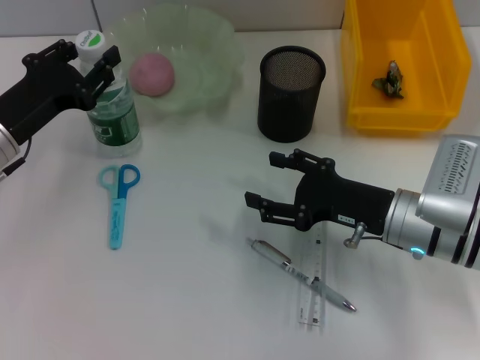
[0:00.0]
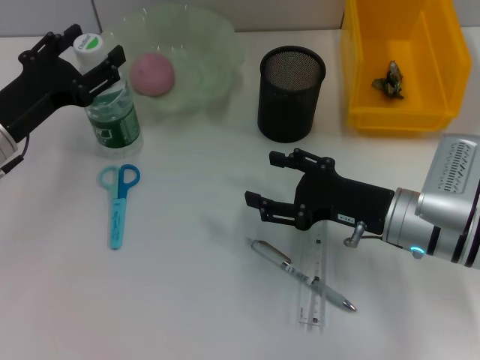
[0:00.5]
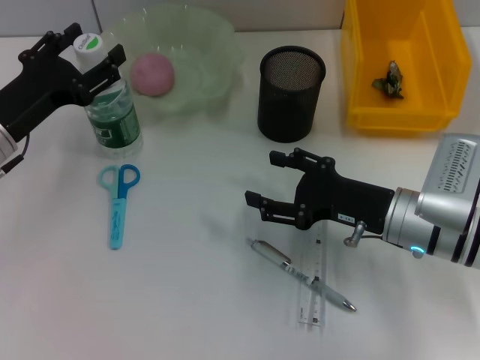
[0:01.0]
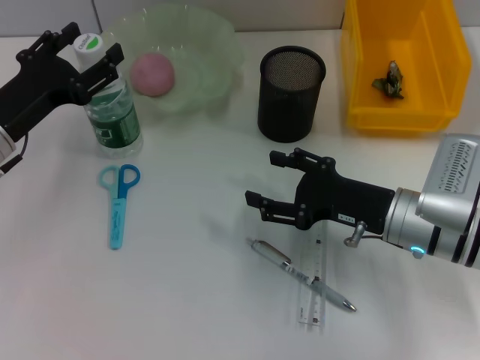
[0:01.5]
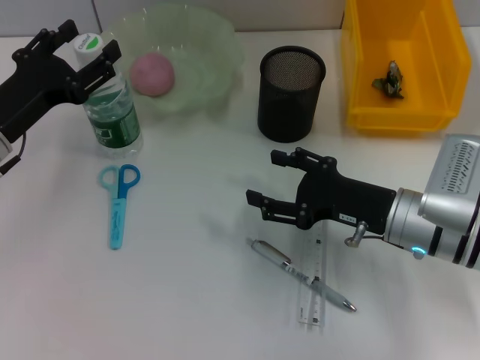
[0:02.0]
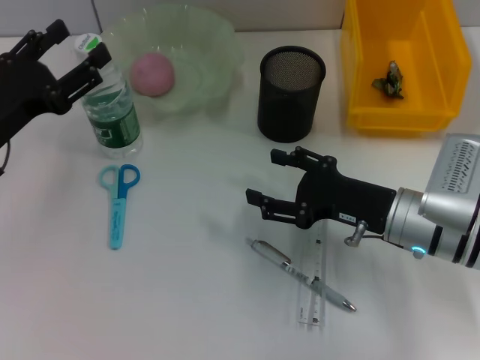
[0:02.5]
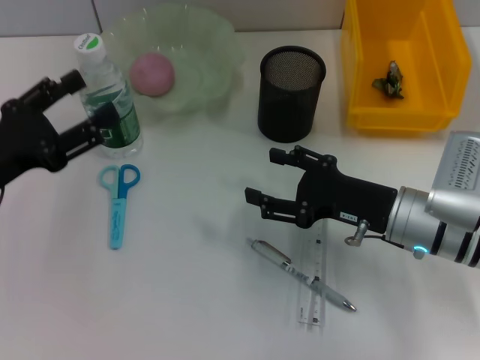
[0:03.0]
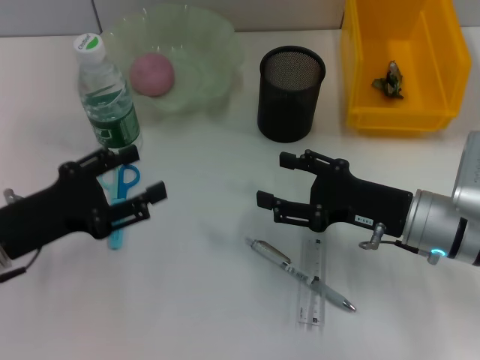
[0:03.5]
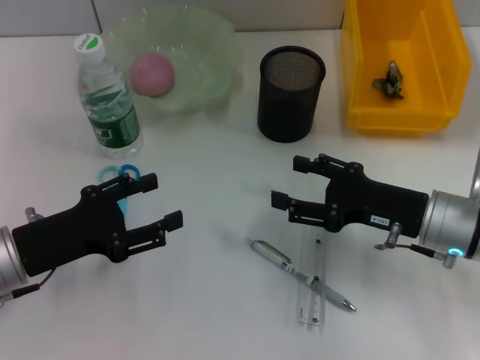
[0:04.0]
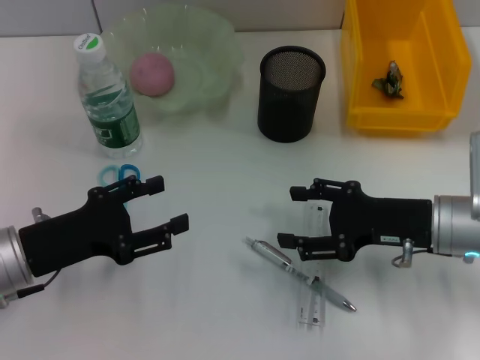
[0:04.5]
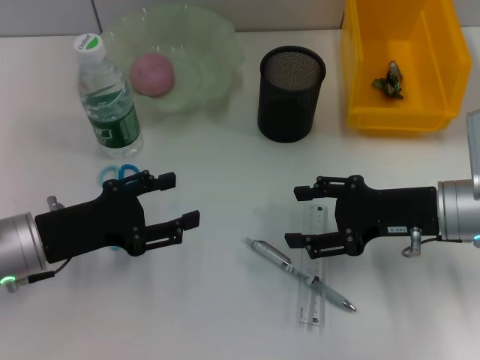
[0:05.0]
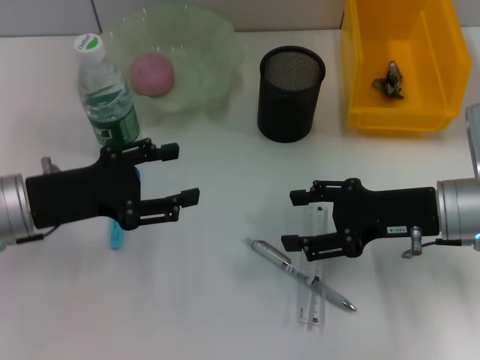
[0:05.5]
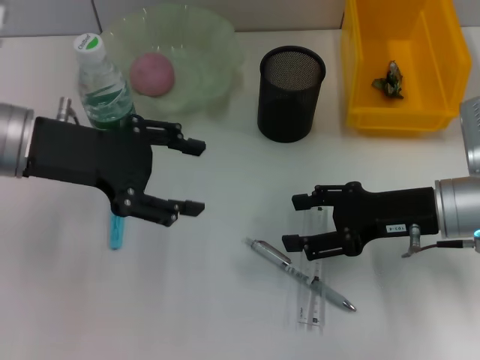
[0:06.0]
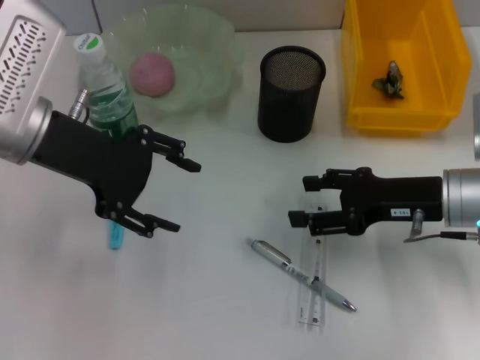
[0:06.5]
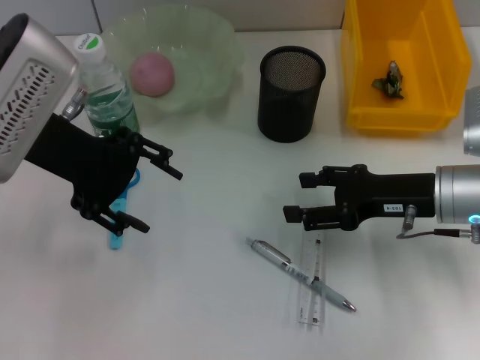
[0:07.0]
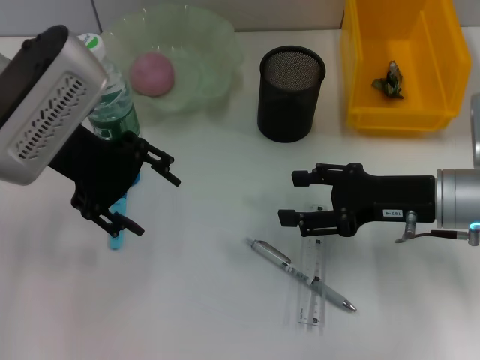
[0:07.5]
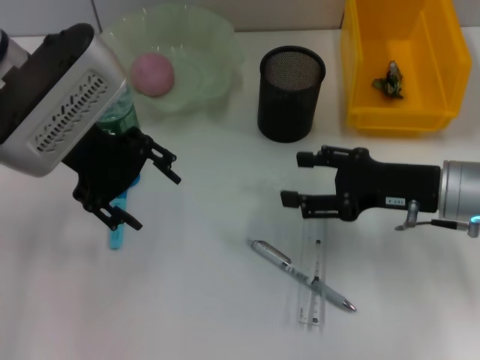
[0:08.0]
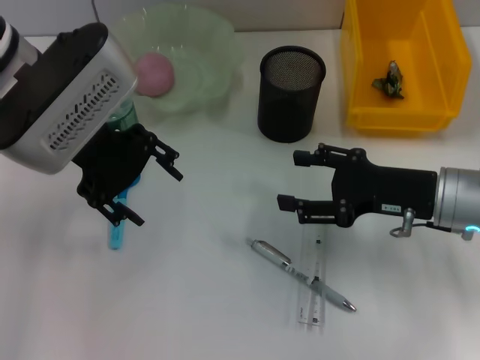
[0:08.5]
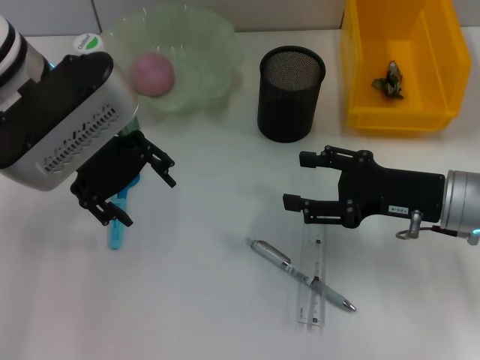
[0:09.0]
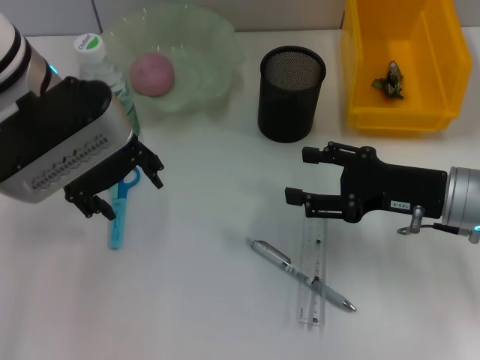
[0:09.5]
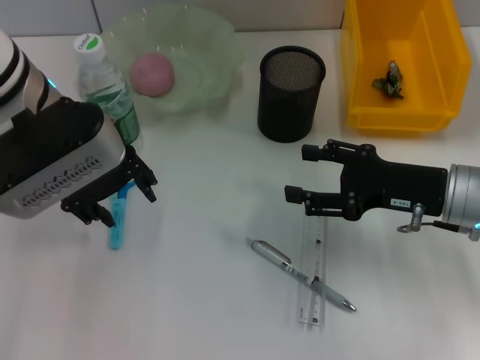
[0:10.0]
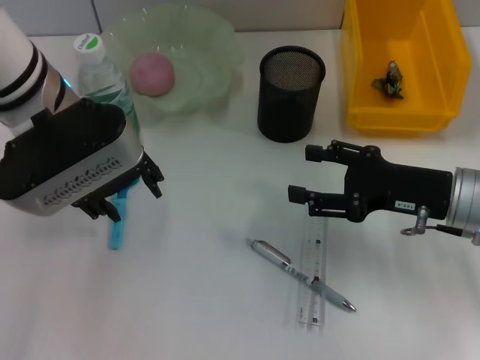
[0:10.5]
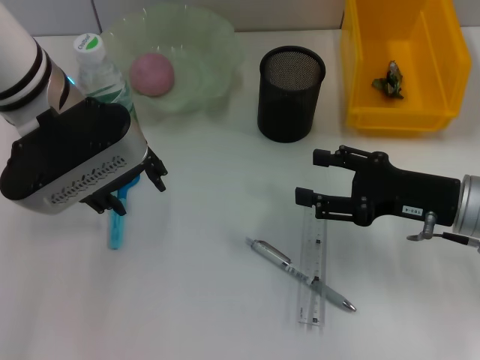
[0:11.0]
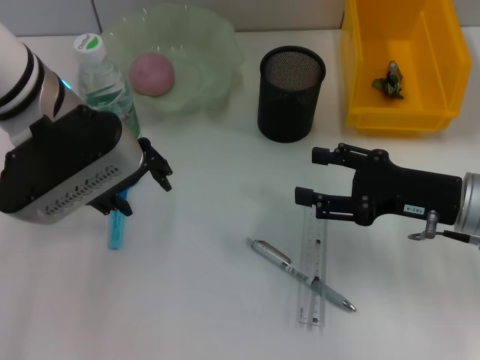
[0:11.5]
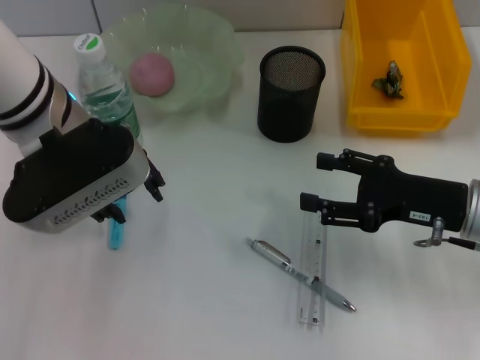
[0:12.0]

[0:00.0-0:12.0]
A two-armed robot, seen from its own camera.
0:00.0 to 0:02.0: The left gripper opens up.
0:02.0 to 0:04.0: The left gripper moves backward, about 10 cm.
0:04.0 to 0:06.0: The left gripper shifts some 15 cm upward and forward.
0:06.0 to 0:08.0: The left gripper is displaced to the right by roughly 5 cm.
0:10.0 to 0:12.0: The grippers move only a little.

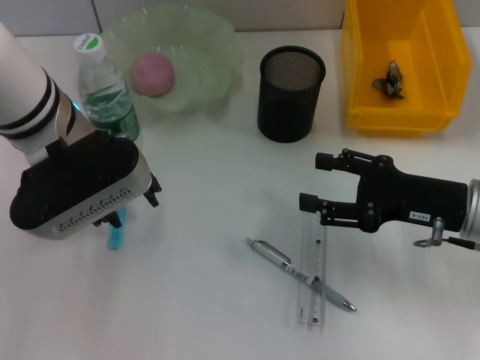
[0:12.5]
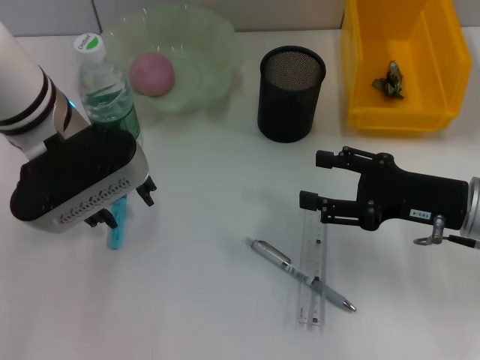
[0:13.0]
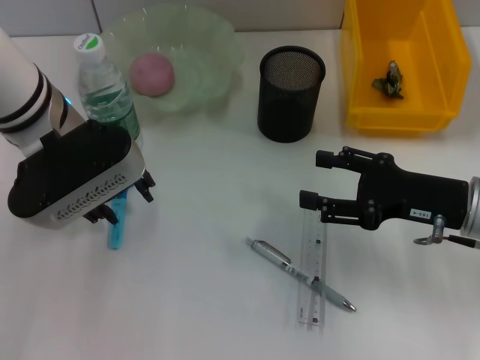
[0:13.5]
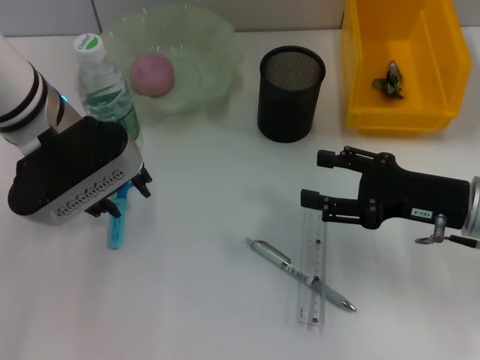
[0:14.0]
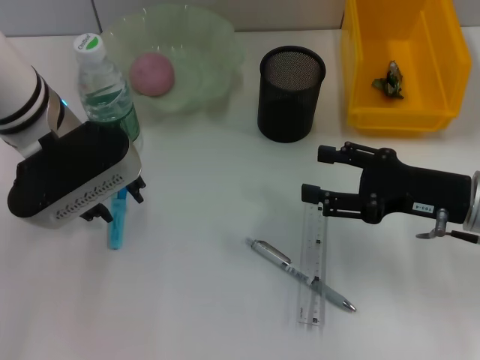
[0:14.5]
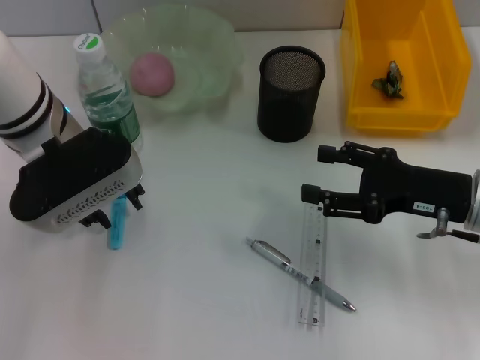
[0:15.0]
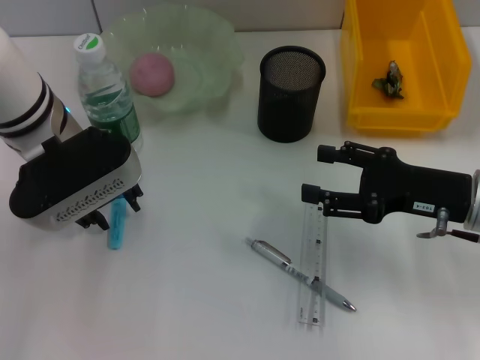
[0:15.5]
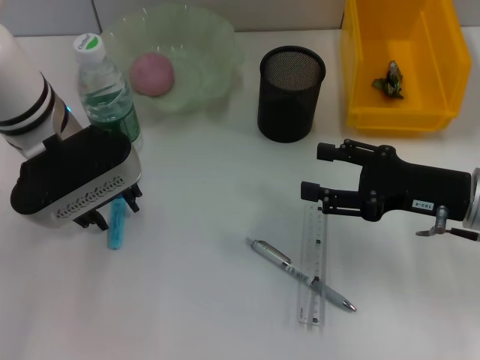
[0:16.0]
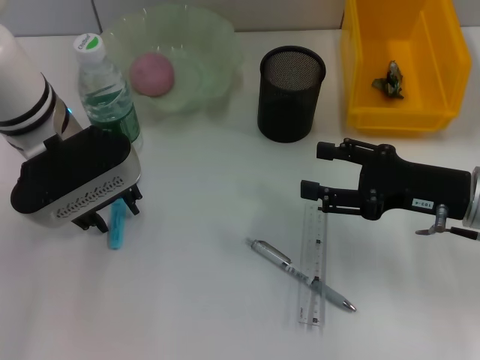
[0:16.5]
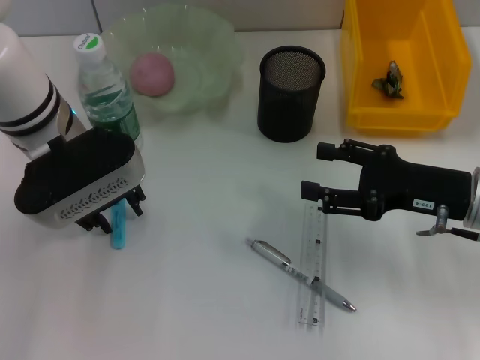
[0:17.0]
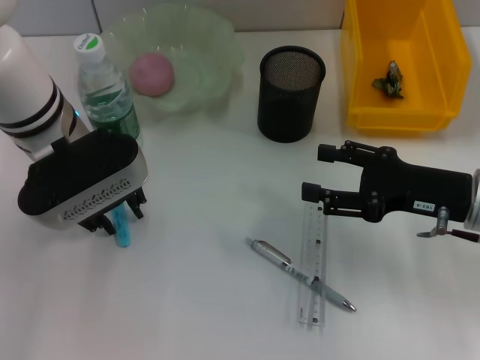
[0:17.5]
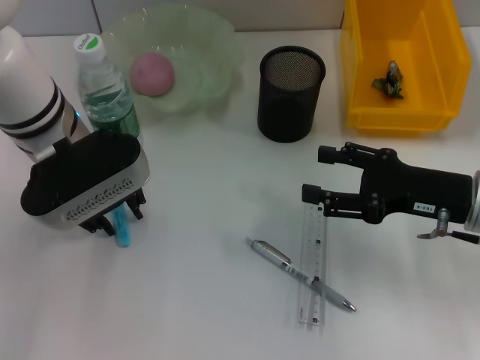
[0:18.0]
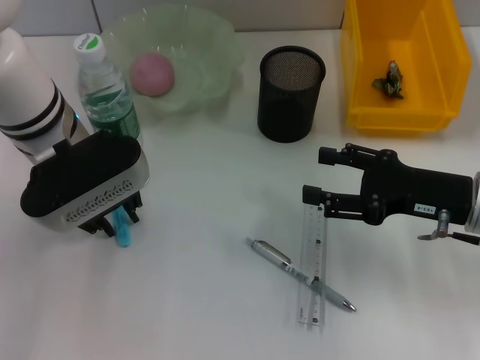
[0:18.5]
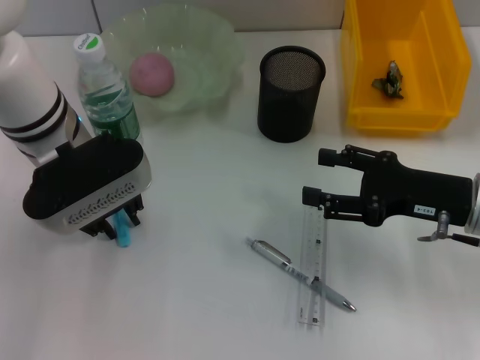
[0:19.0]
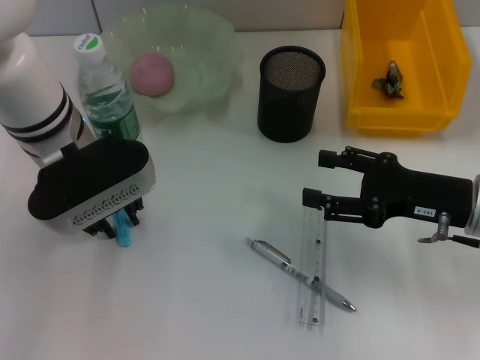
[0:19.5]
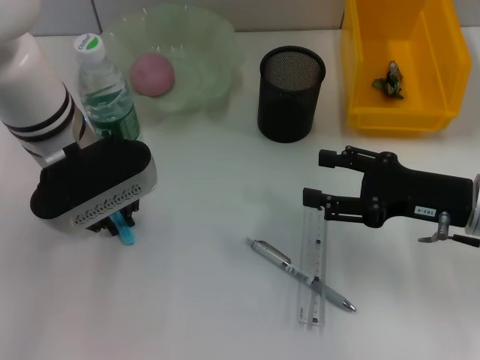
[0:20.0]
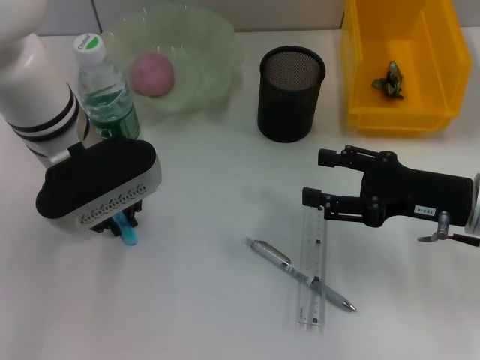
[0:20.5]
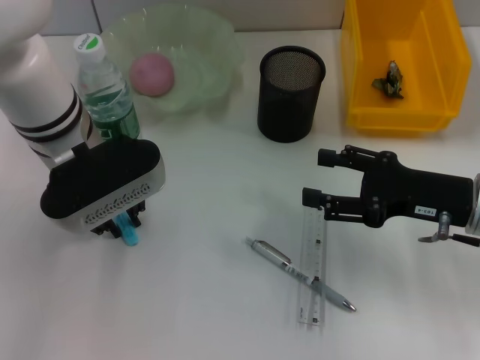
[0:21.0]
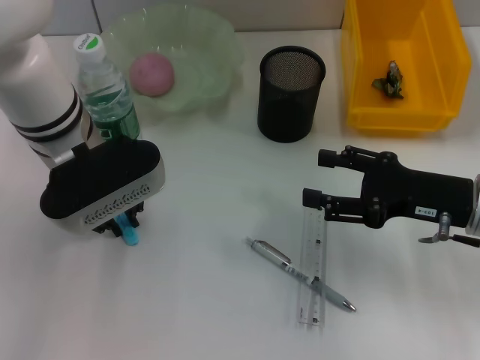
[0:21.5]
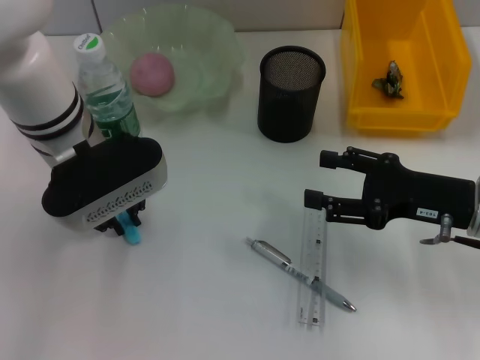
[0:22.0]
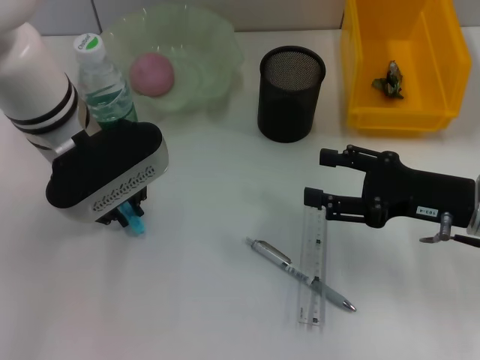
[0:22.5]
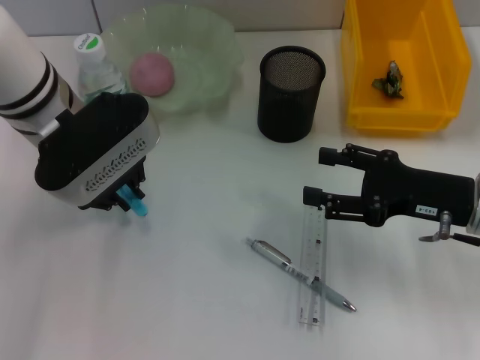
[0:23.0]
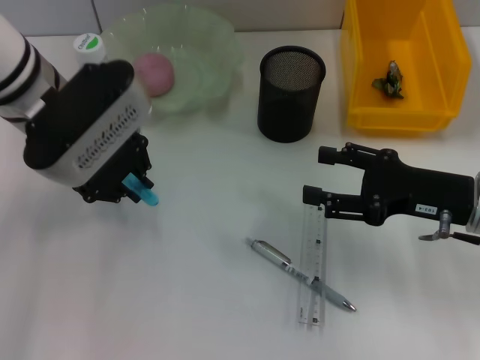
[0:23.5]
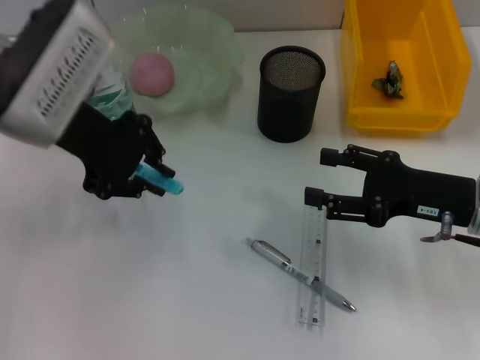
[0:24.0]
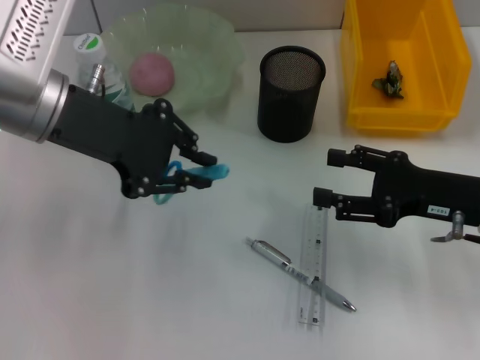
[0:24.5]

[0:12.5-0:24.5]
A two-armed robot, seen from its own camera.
Step, 0:12.5 to 0:22.0: Grab the blue scissors with the left hand.
0:12.5 to 0:16.5: There are only small adjustments of the grippers.
0:16.5 to 0:18.5: The two grippers keep their place.
0:18.5 to 0:20.5: The two grippers keep their place.
0:20.5 to 0:22.5: The grippers stay close to where they were, moving slightly.
0:22.5 to 0:24.5: The left gripper heads upward, covering approximately 5 cm.

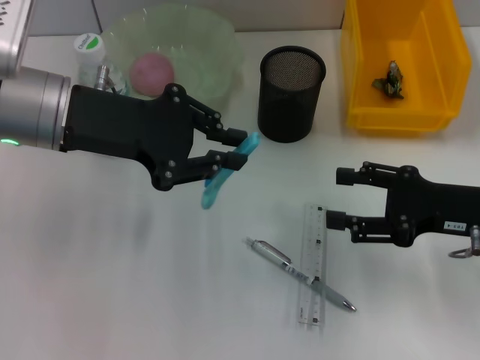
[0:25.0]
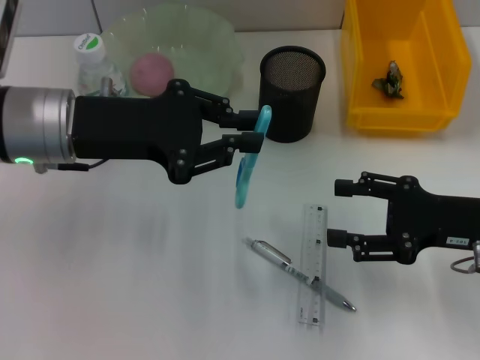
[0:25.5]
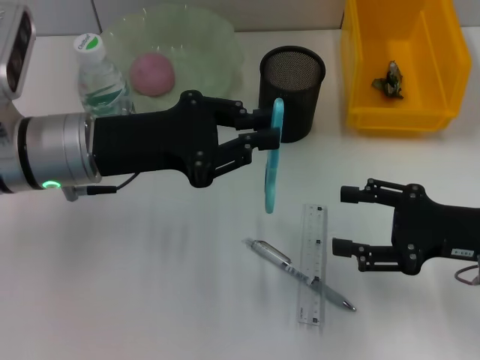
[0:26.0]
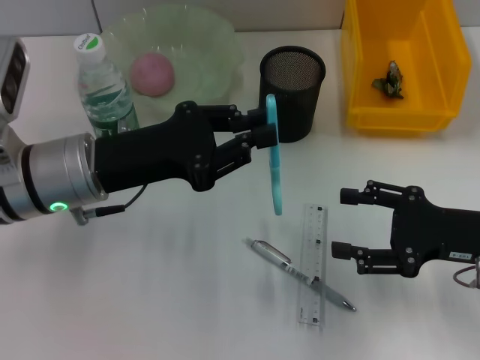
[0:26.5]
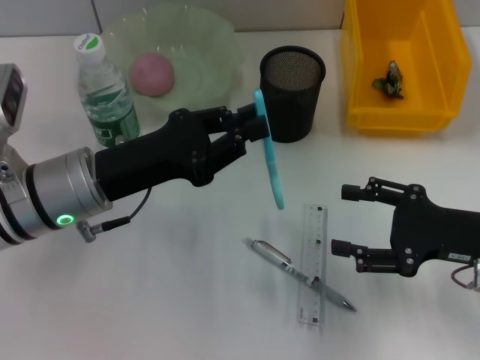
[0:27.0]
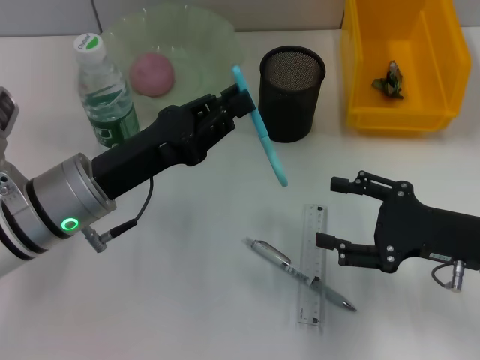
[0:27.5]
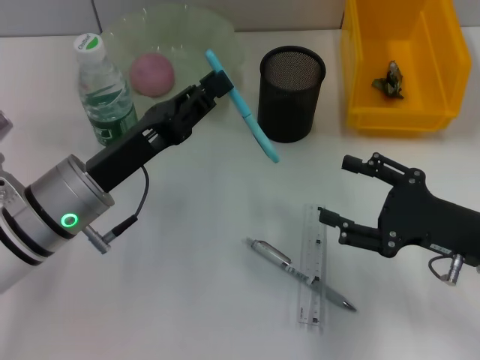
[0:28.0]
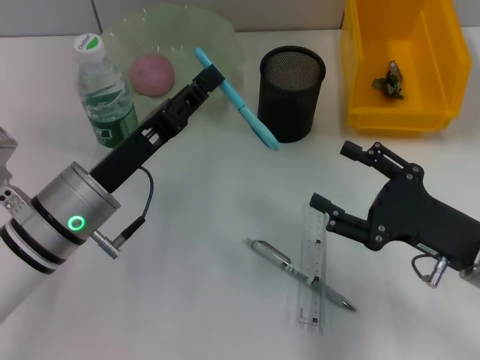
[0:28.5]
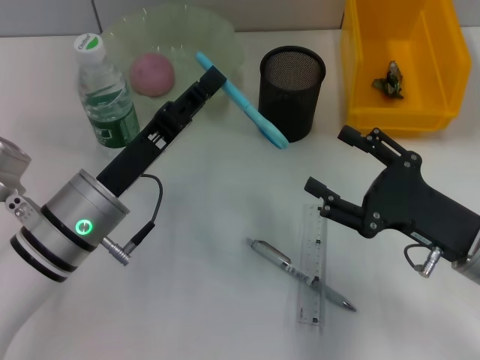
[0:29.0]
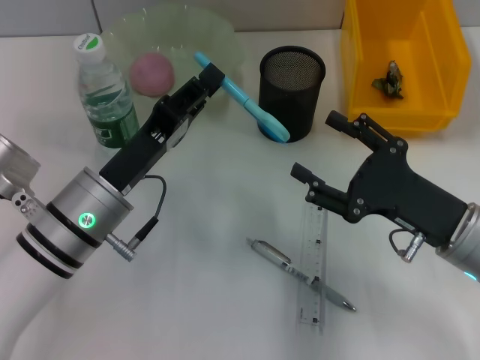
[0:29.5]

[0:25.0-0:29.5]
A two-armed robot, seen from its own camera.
0:25.0 to 0:27.0: The left gripper moves downward, some 10 cm.
0:27.0 to 0:29.5: The right gripper travels to the left by about 5 cm.
